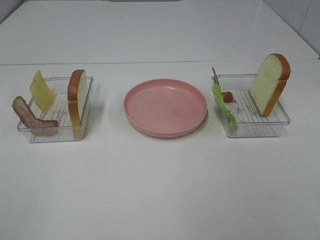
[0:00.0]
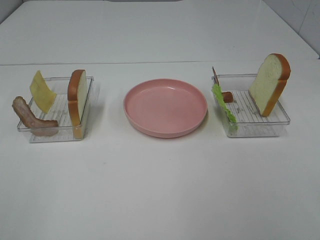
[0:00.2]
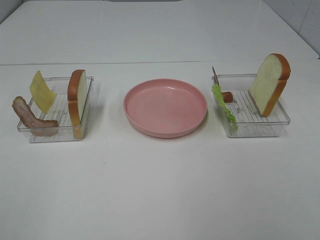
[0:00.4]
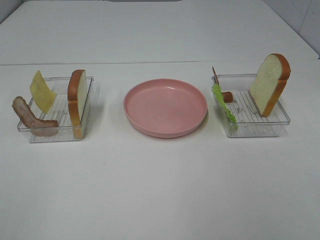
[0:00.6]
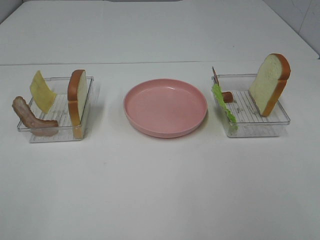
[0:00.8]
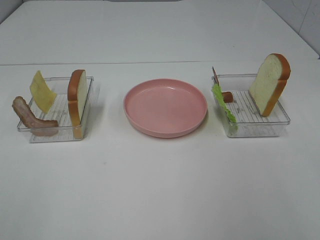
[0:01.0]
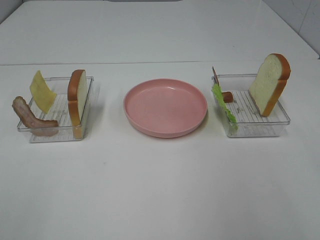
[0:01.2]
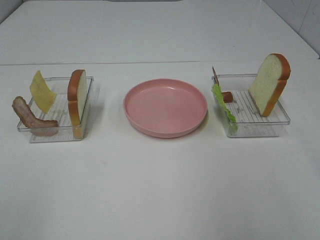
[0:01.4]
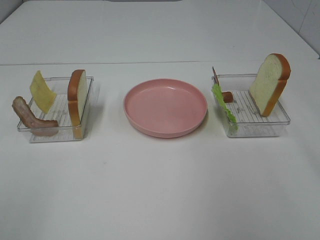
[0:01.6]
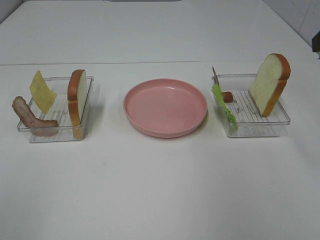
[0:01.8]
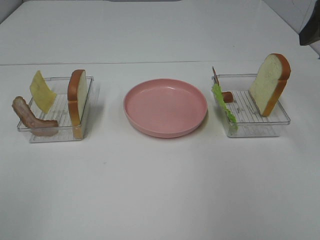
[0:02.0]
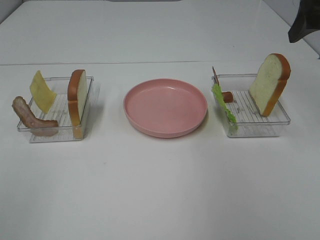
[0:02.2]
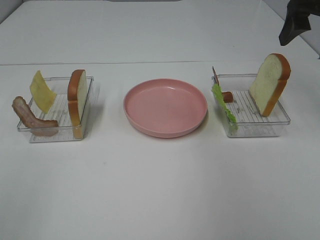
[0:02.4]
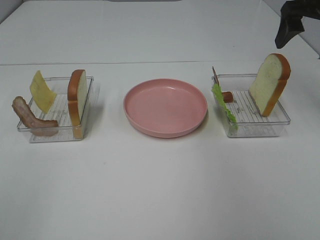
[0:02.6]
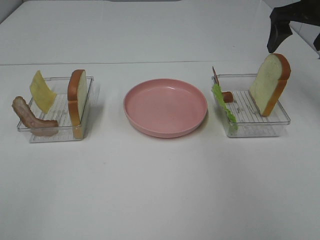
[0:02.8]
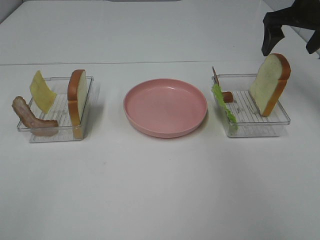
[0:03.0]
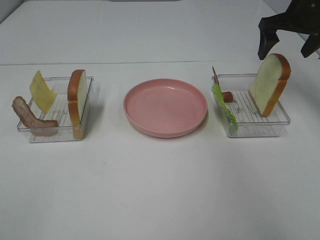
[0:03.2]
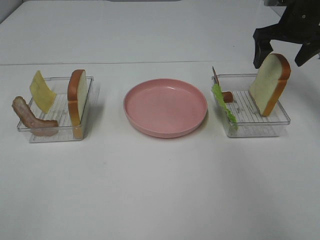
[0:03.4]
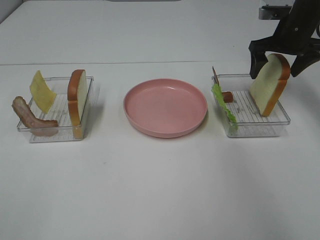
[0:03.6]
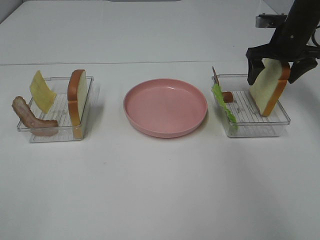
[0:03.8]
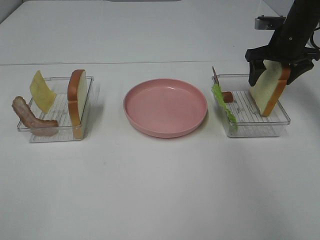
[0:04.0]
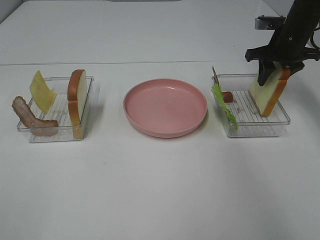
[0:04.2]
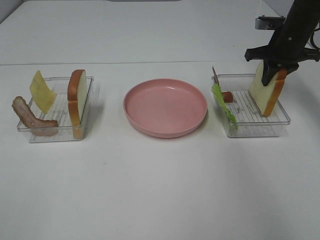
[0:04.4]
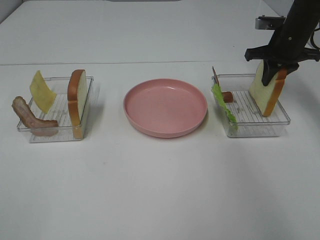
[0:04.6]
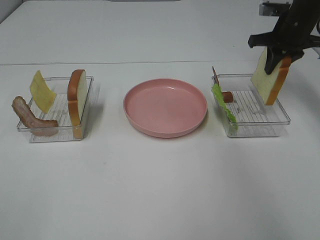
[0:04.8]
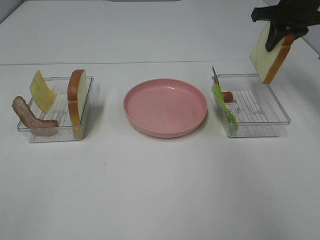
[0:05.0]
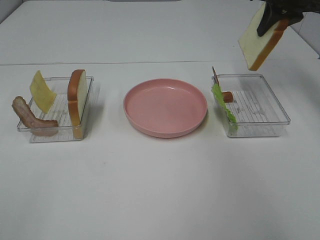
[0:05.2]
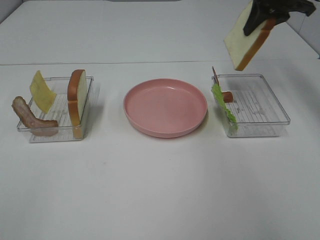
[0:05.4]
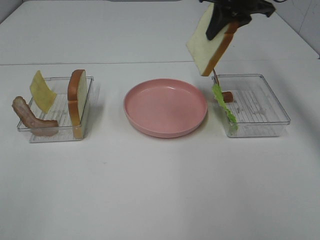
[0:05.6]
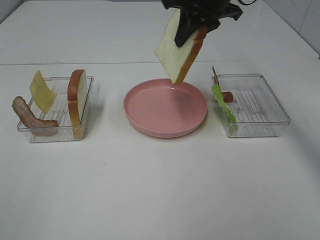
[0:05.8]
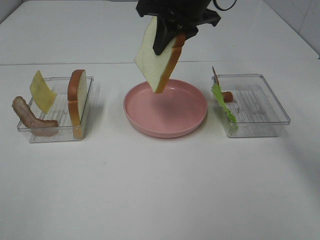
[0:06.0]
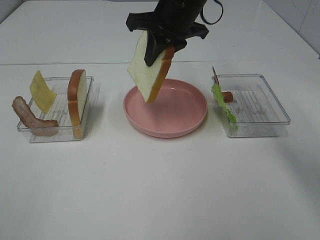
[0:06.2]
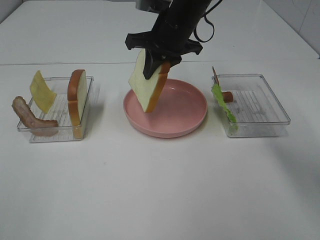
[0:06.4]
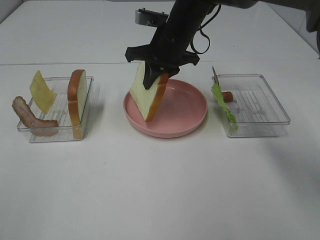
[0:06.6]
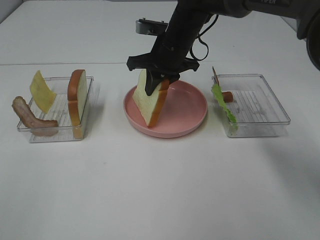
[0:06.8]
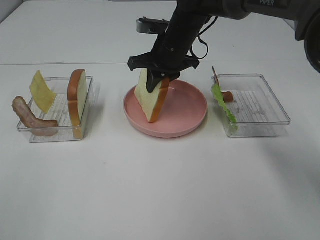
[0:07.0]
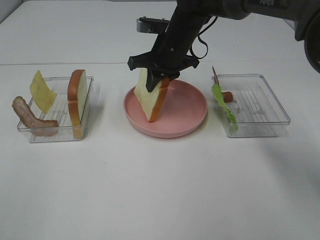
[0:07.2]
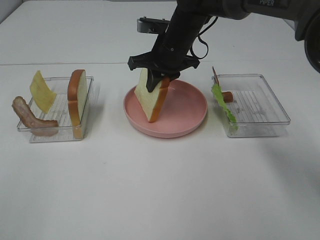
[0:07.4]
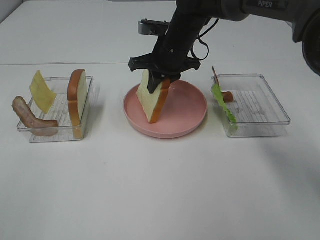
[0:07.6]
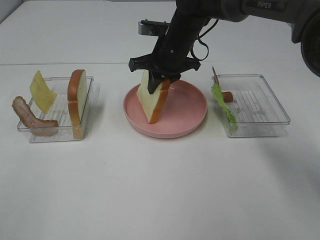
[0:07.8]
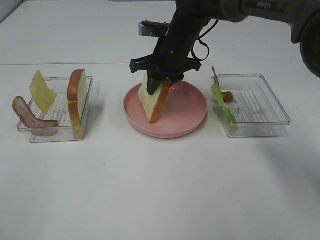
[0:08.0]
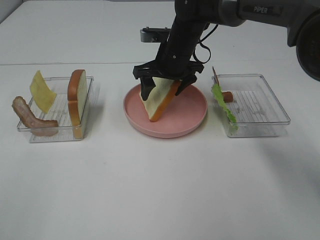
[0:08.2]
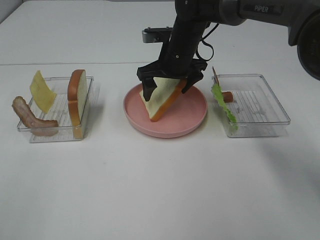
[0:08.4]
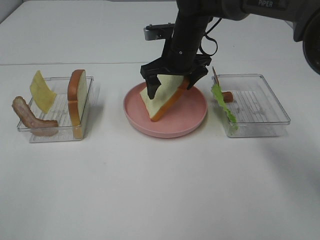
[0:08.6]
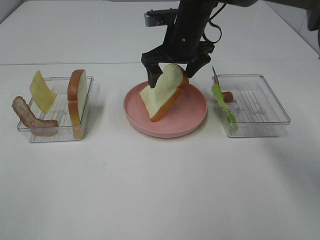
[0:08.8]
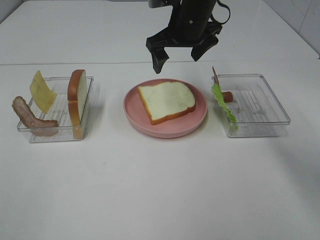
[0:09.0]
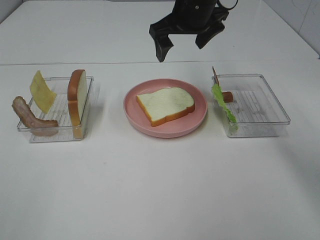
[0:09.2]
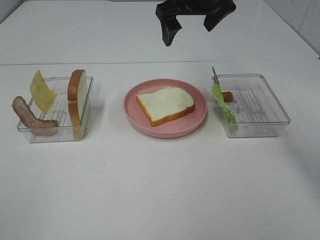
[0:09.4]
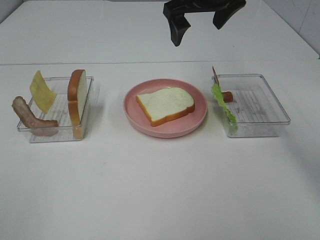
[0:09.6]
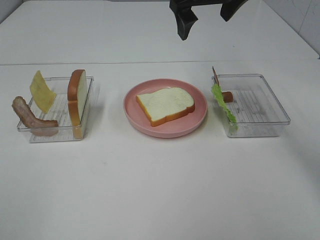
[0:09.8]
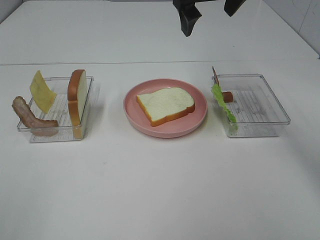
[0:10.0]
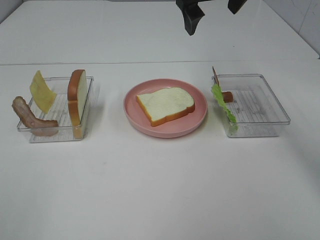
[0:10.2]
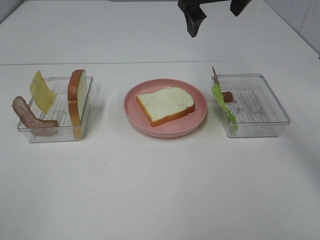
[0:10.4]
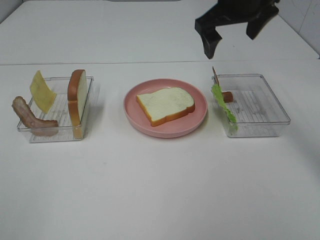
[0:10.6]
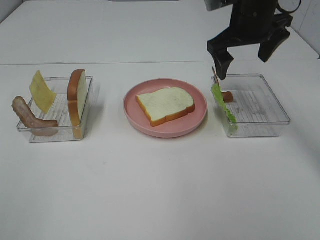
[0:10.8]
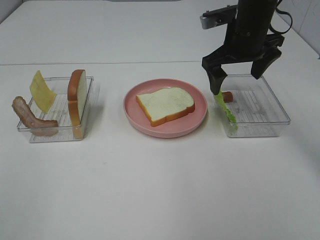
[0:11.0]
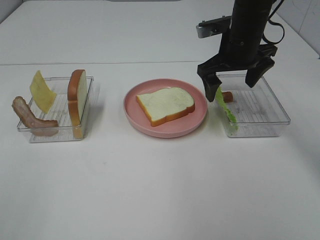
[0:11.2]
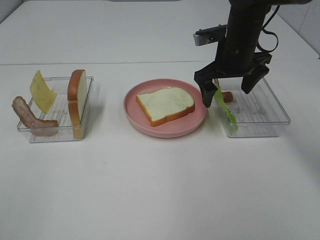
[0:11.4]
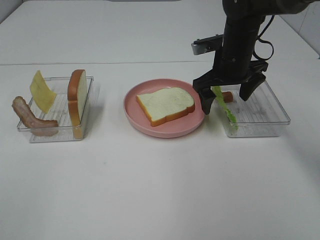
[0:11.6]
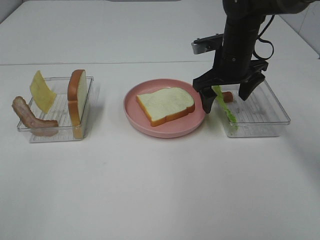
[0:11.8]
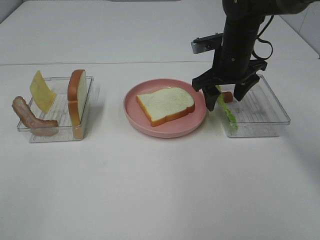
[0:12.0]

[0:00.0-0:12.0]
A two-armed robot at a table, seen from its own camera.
Task of the whole recording: Make sandwiches.
Step, 0:00.0 to 0:04.4: Right hand:grab the bread slice.
Step, 0:04.6 to 0:09.0: Right hand:place the bread slice on the plate.
0:01.6 to 0:03.0: The right gripper heads forward, covering approximately 25 cm.
0:03.0 to 0:04.4: The right gripper heads downward, covering some 10 cm, and closes up.
0:04.4 to 0:06.0: The right gripper moves to the left and upward, some 25 cm.
0:06.0 to 0:07.6: The right gripper travels downward by approximately 10 cm.
0:07.6 to 0:09.0: The right gripper travels upward by some 5 cm, and opens.
0:09.0 to 0:10.4: The right gripper shifts roughly 10 cm upward.
0:10.4 to 0:12.0: The right gripper travels downward by roughly 15 cm.

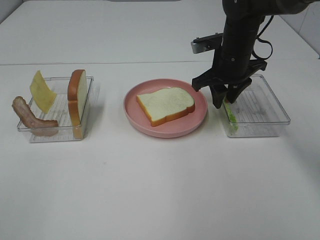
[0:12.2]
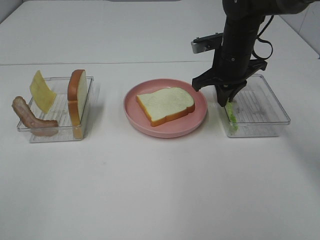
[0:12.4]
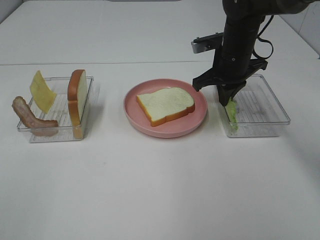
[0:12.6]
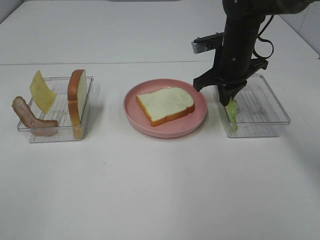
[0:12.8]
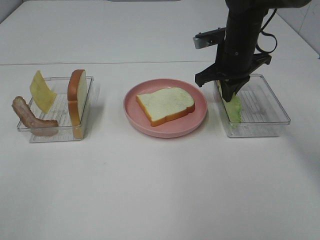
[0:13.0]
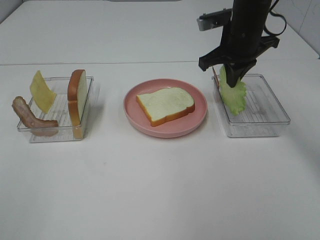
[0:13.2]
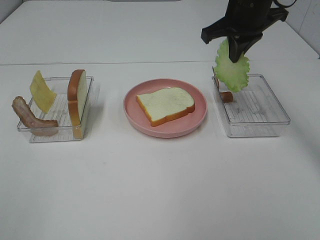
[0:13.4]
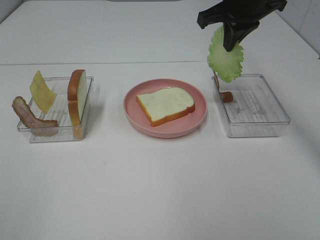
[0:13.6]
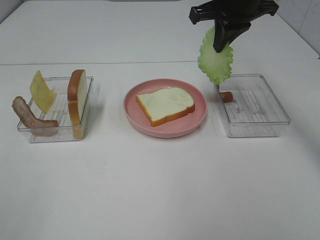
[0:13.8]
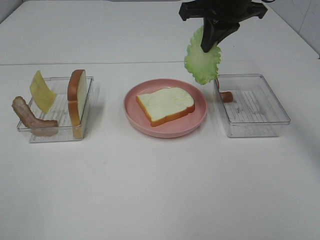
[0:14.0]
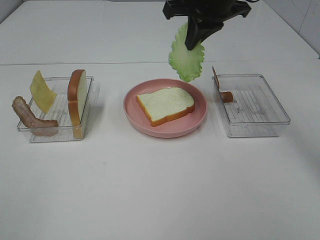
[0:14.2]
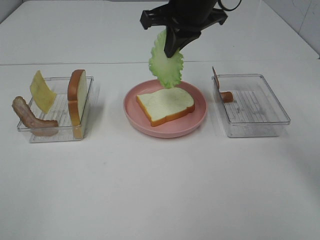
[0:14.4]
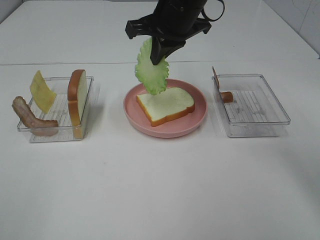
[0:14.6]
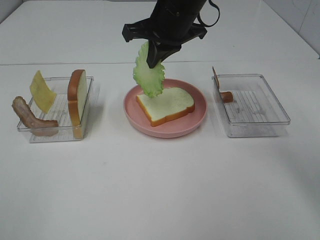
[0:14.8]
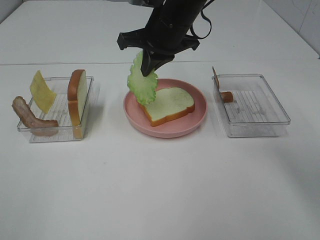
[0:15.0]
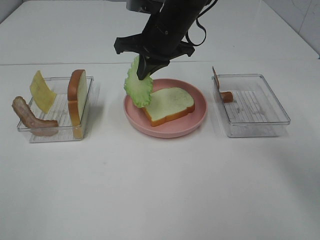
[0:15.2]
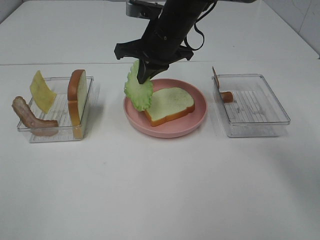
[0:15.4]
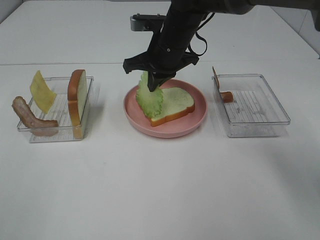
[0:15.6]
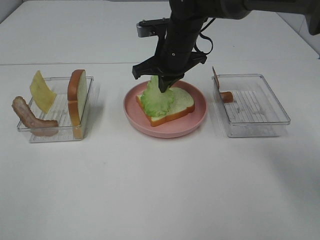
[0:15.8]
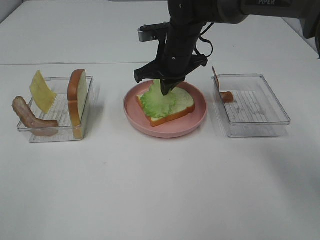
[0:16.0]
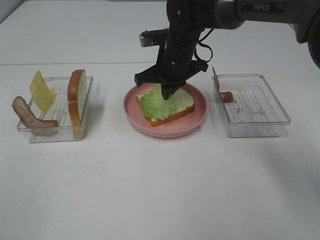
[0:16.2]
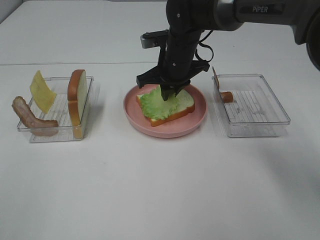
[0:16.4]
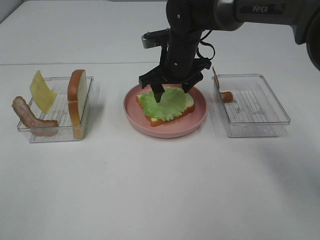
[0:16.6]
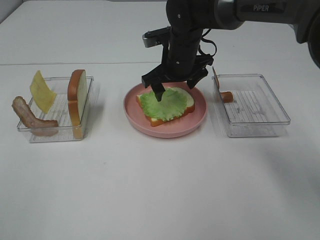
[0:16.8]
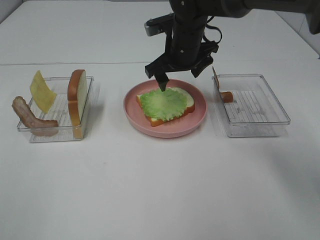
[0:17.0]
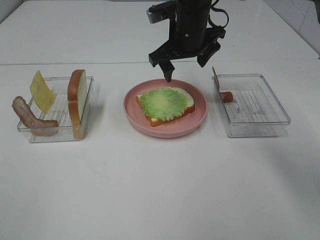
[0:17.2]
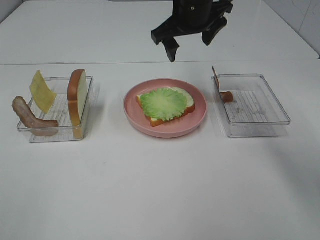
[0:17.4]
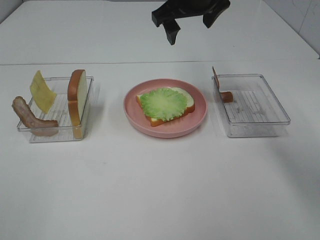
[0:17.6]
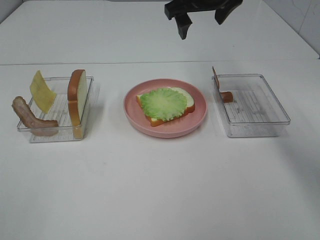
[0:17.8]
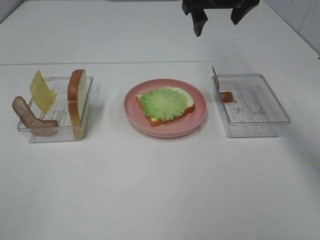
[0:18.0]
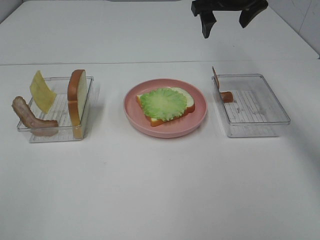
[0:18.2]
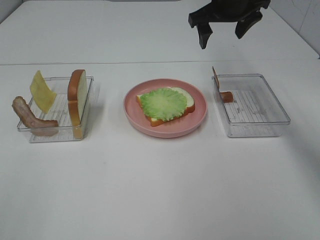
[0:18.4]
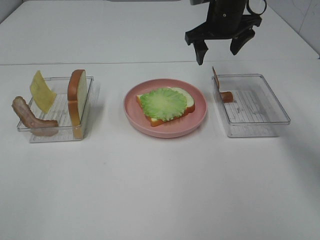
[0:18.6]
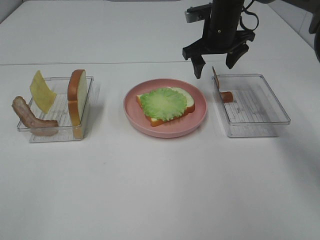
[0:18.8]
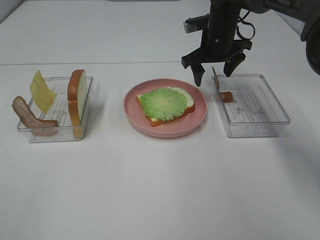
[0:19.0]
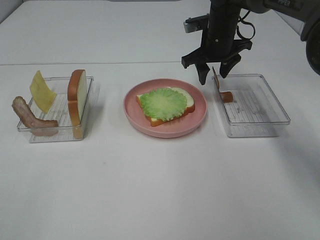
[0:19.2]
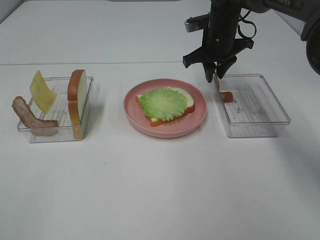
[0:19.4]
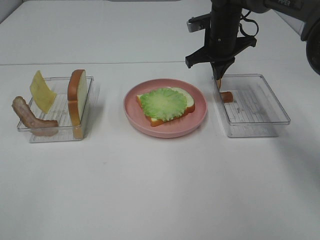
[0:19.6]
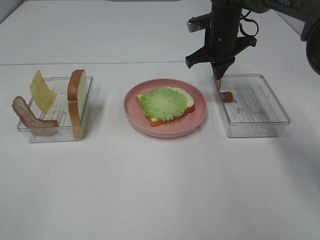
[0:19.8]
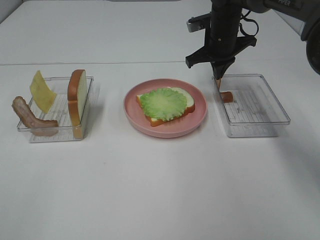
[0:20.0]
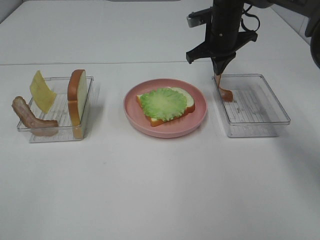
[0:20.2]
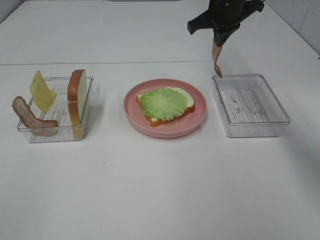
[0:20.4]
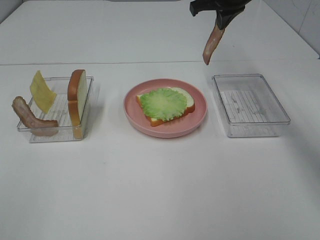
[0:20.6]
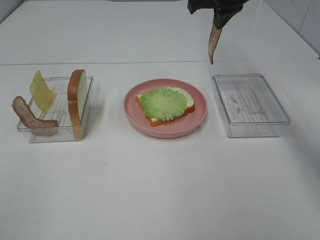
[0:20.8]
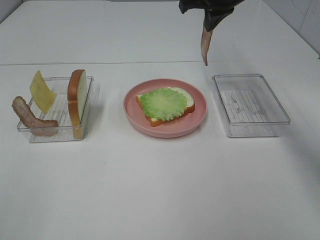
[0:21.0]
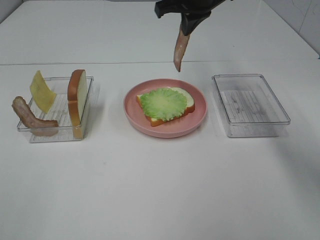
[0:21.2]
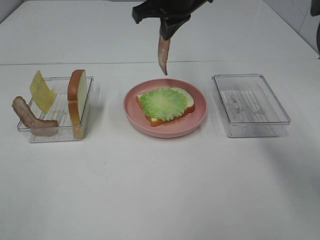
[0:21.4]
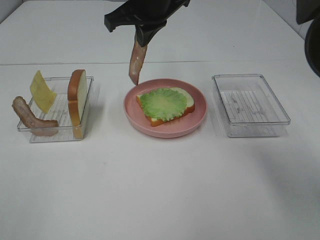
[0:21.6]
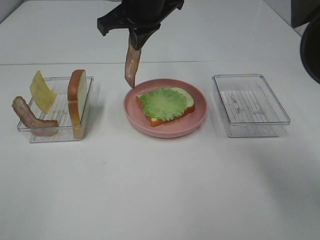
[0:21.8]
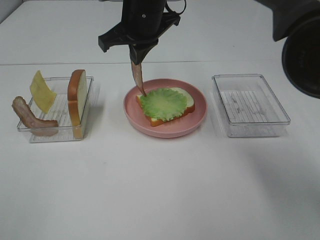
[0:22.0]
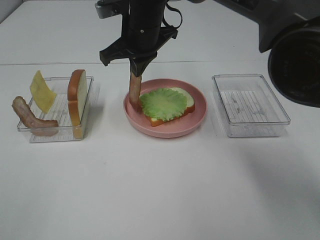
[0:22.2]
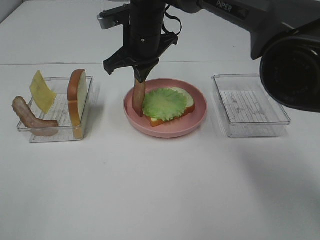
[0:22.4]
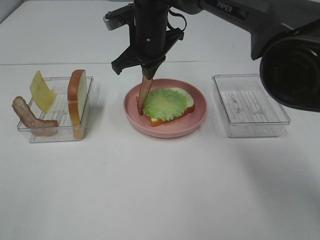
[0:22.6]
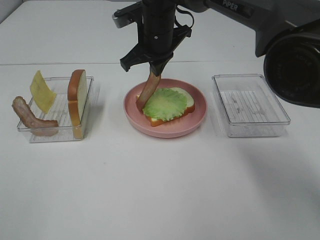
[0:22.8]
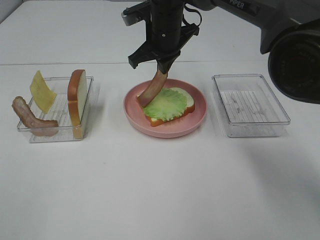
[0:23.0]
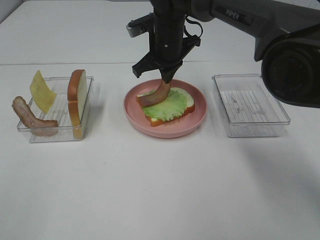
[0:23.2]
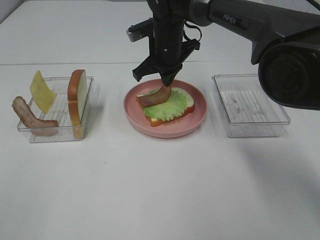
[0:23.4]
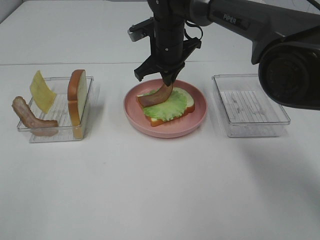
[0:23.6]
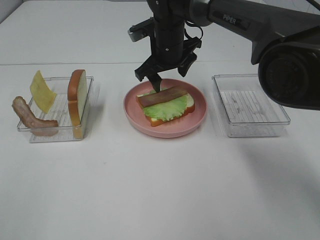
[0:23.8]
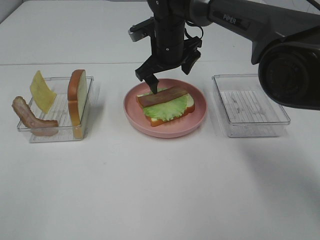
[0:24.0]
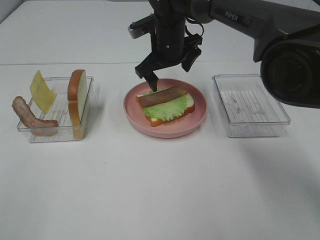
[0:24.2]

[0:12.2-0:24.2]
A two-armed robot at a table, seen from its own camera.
Task of the whole recording: Make sandwiches.
Step, 0:12.6 to 0:16.8: Right hand:place the lettuce slice on the bread slice.
Step, 0:17.0 to 0:19.8: Right hand:grab the bacon.
0:12.2 to 0:13.8: The right gripper moves upward, about 10 cm, and closes.
0:13.8 to 0:15.2: The right gripper shifts about 15 cm to the left and downward.
0:15.2 to 0:16.6: The right gripper shifts about 5 cm downward, and opens.
0:16.6 to 0:18.2: The right gripper goes approximately 15 cm upward and to the right.
0:18.2 to 0:19.8: The right gripper goes roughly 10 cm downward, and closes its fingers.
0:19.8 to 0:21.2: The right gripper heads upward and to the left, covering some 15 cm.
0:21.2 to 0:22.6: The right gripper heads to the left and downward, covering approximately 10 cm.
0:22.6 to 0:24.2: The right gripper shifts by roughly 5 cm, and opens.
